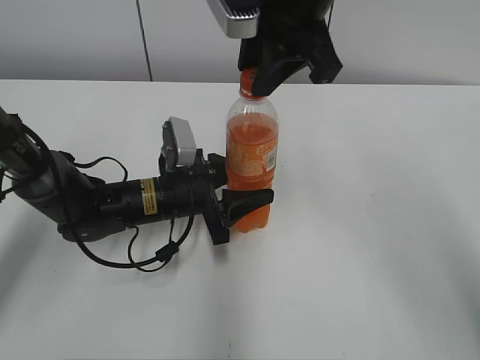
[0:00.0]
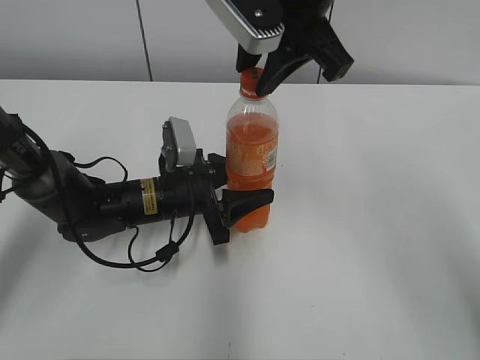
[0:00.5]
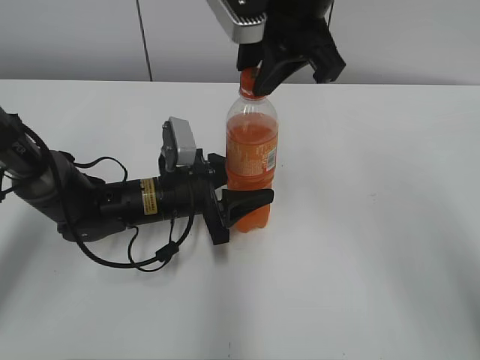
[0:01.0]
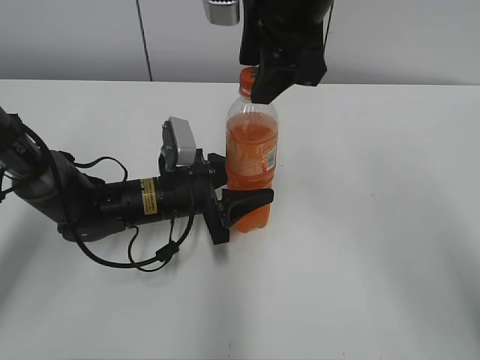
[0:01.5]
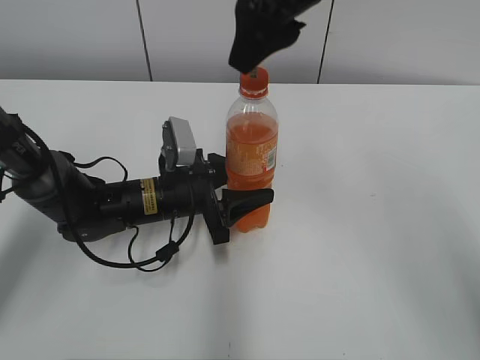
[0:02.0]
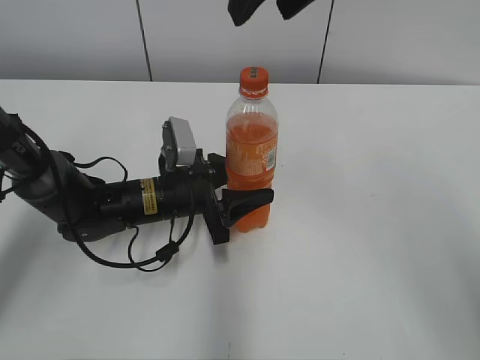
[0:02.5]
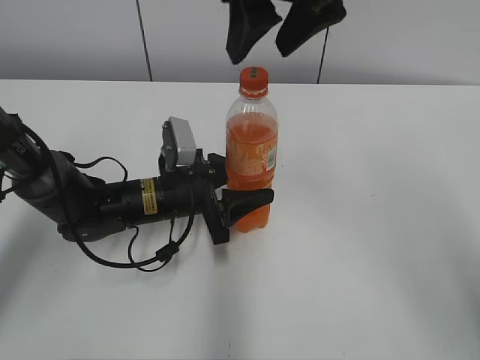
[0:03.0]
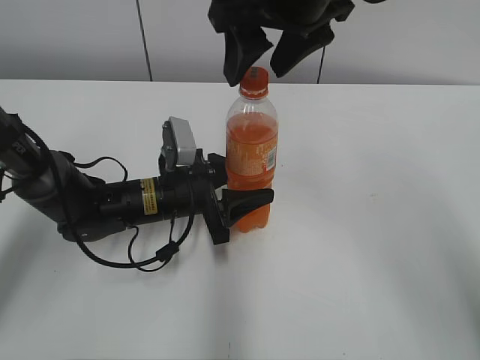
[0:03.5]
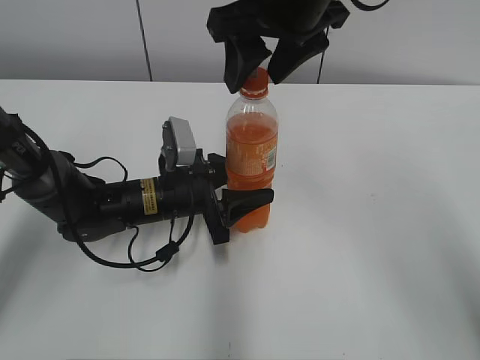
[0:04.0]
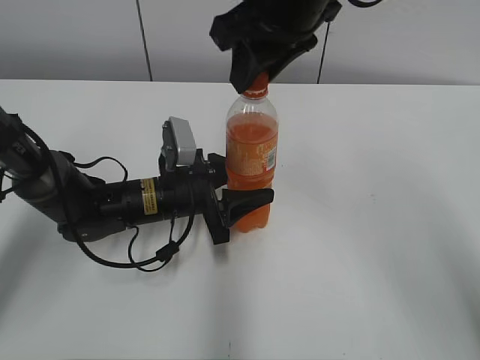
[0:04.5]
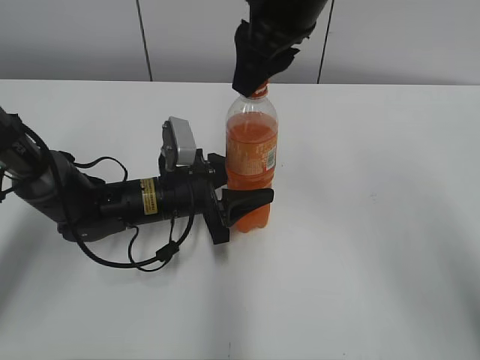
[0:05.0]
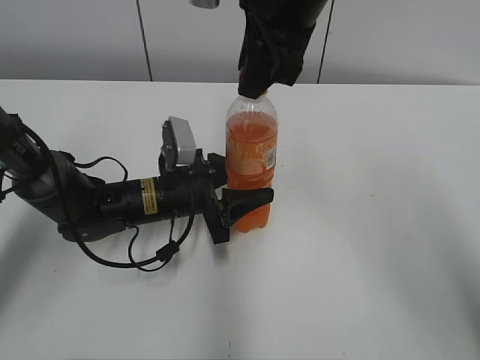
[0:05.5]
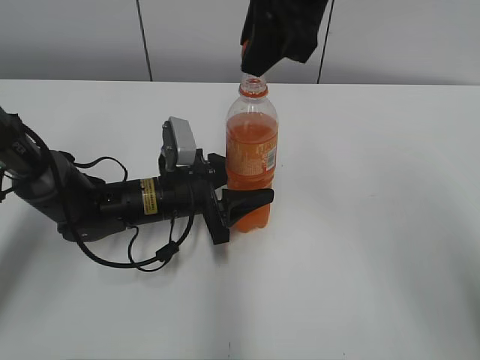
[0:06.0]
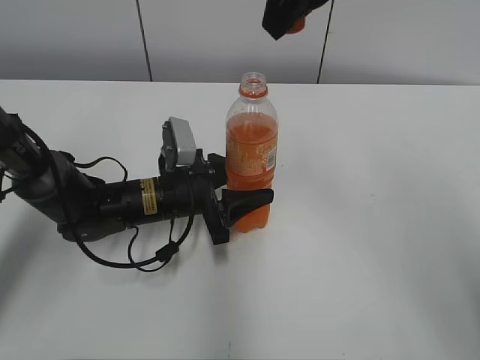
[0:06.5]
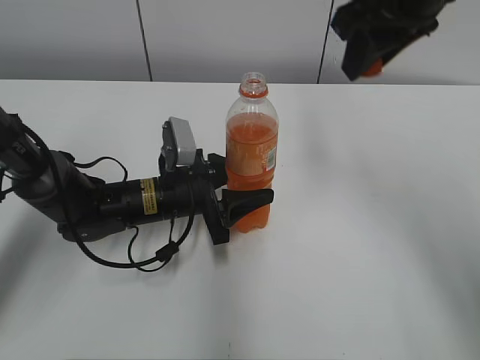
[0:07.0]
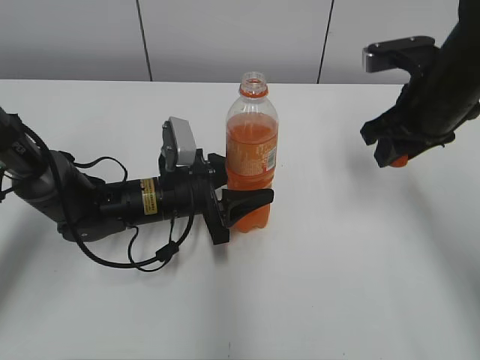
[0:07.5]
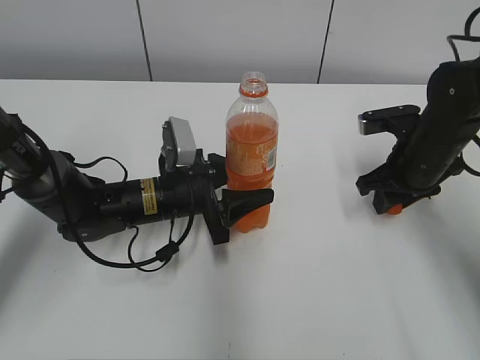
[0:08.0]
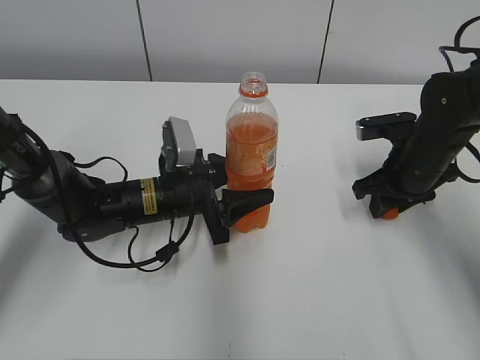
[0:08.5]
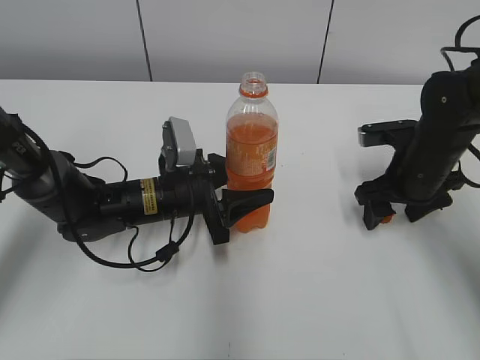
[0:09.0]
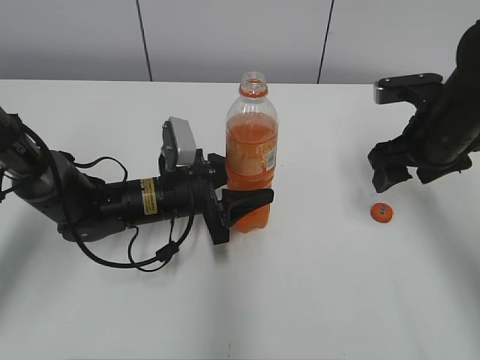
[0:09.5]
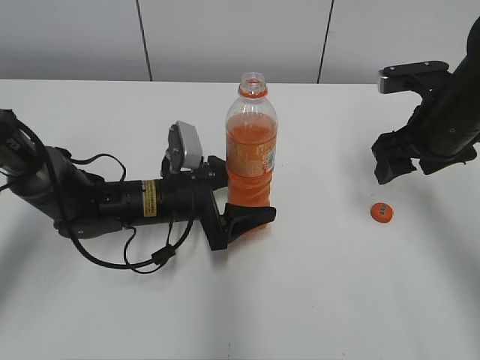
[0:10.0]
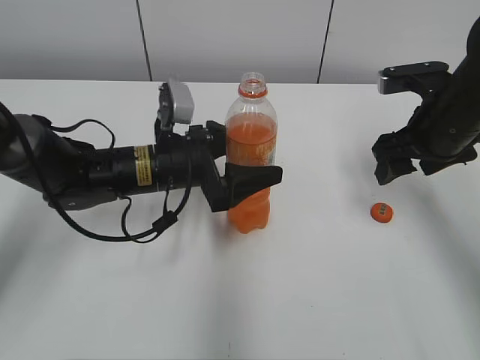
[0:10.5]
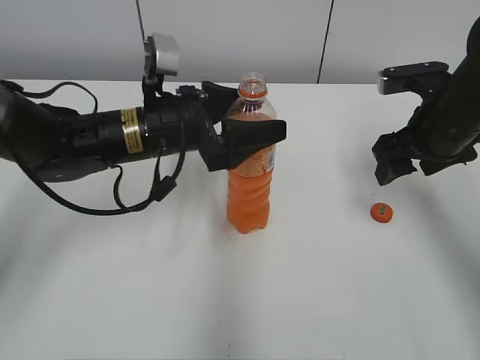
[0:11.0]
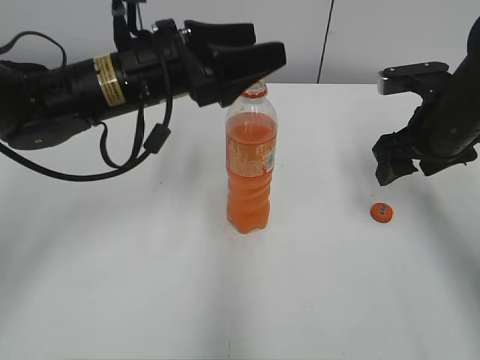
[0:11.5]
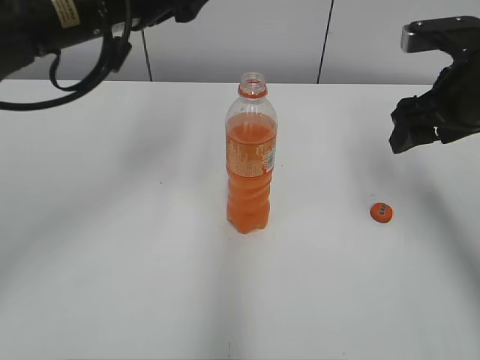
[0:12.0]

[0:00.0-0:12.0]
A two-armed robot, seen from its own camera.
Step, 0:06.0 to 0:08.5: Place the bottle cap on the right.
0:00.0 to 0:02.0: The right gripper opens.
0:04.0 to 0:06.0: The right gripper closes its fingers.
0:06.0 to 0:08.0: The right gripper shifts about 30 cm downward and to the right.
0:08.0 to 0:10.0: The right gripper moves upward, approximately 5 cm, and opens up, while the left gripper opens.
0:10.0 to 0:12.0: The right gripper travels upward by about 5 cm. The left gripper moves upward, about 25 cm.

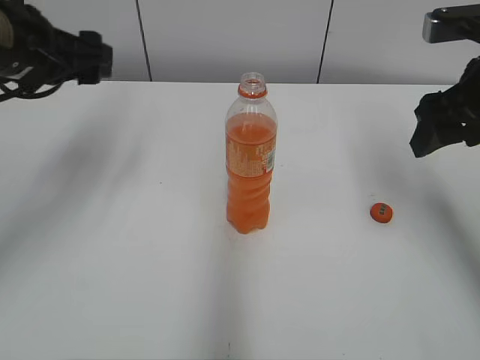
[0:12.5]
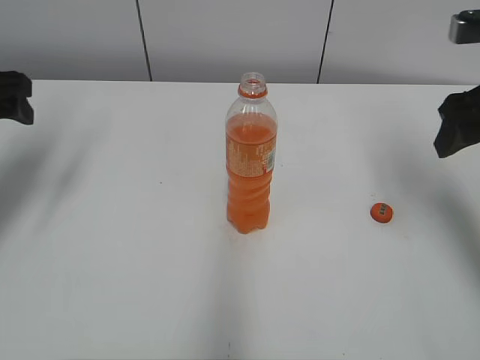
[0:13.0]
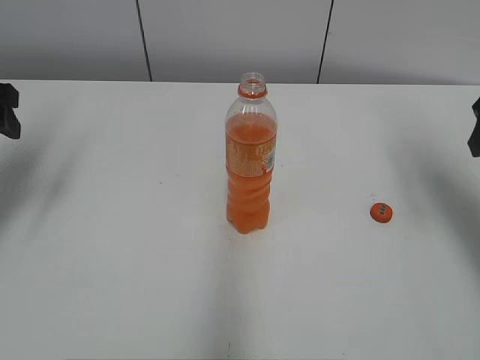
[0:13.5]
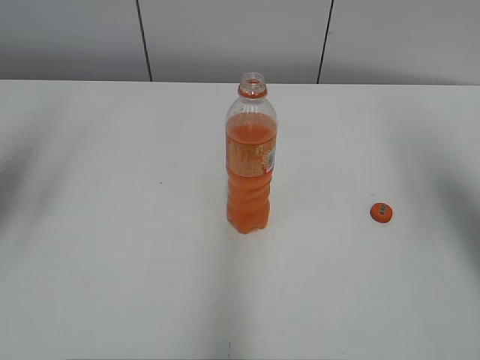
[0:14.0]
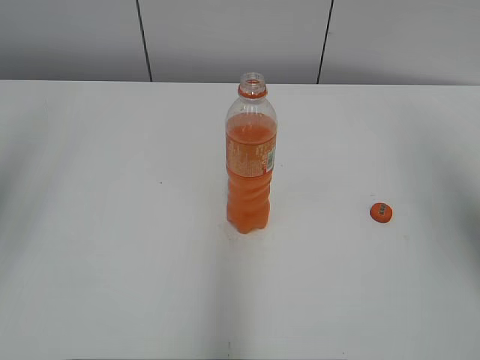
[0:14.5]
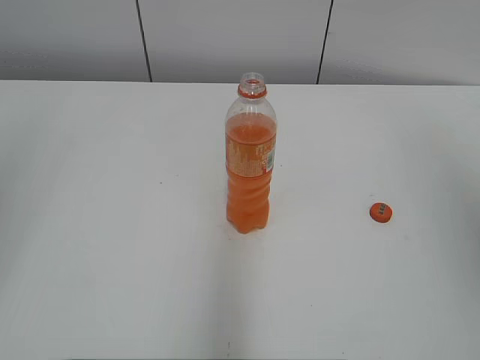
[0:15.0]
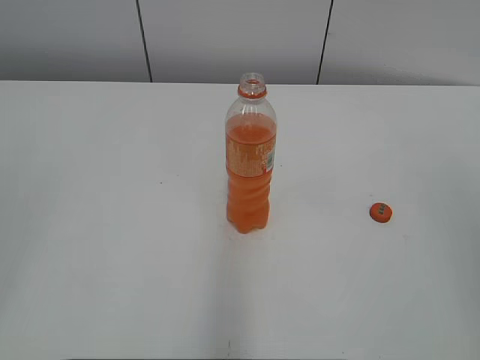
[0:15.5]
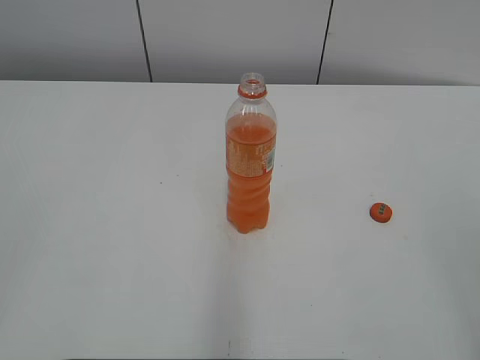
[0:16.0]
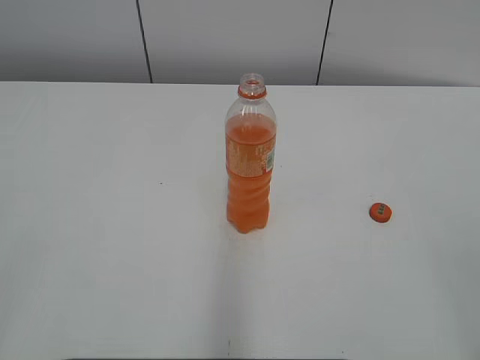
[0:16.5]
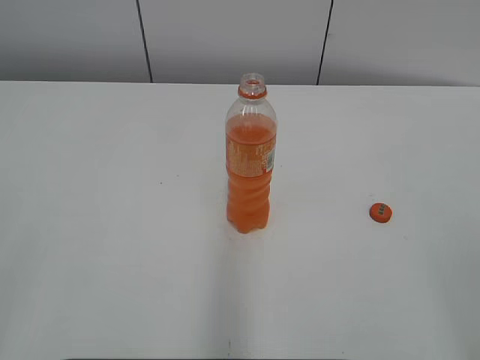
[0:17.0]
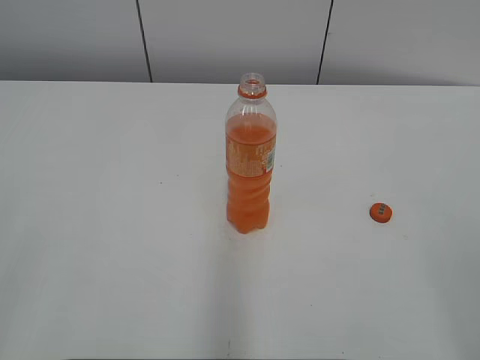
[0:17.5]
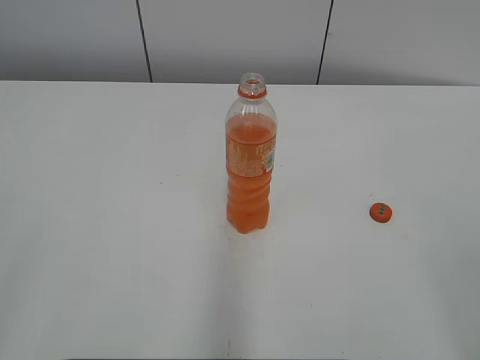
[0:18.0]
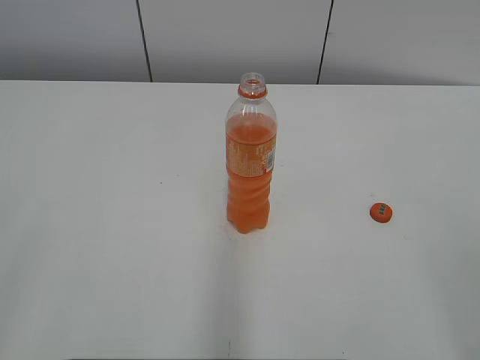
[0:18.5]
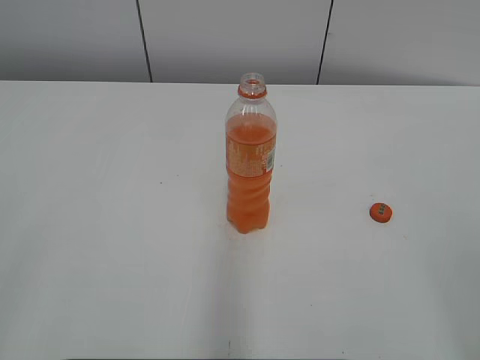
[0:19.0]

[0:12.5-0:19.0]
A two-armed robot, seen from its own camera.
0:12.5 to 0:14.5: The left gripper goes about 20 cm backward, to the left and upward. The right gripper shifts approximately 15 cm upward, backward and to the right.
0:14.5 to 0:17.0: The left gripper travels backward by approximately 20 cm; the right gripper moves backward and downward, some 25 cm.
0:17.0 to 0:19.0: The two grippers keep their place.
